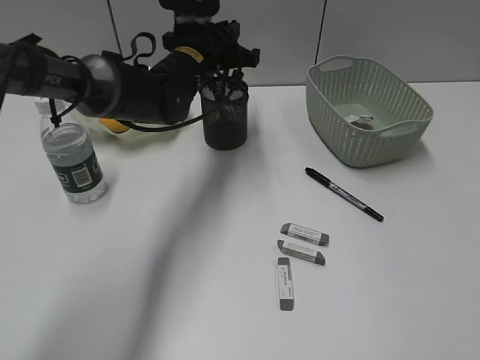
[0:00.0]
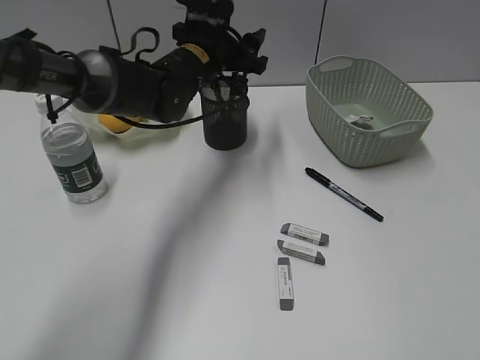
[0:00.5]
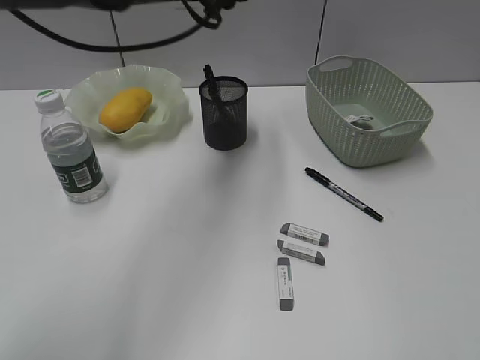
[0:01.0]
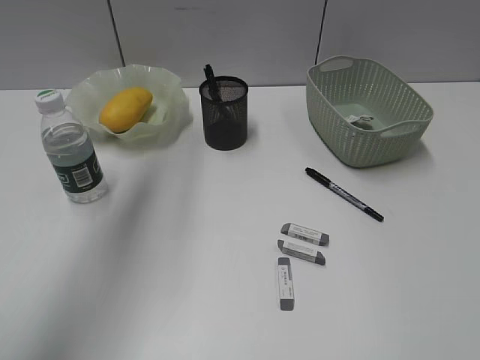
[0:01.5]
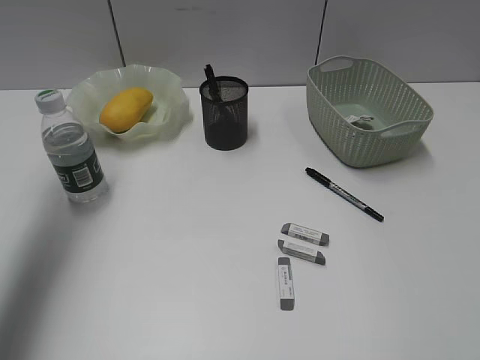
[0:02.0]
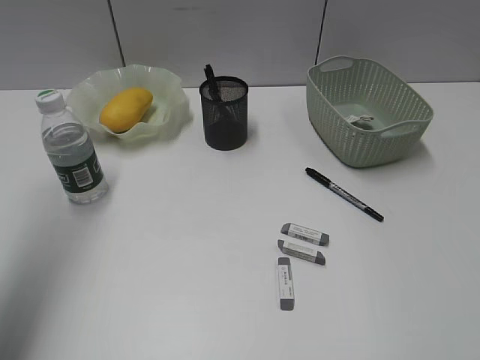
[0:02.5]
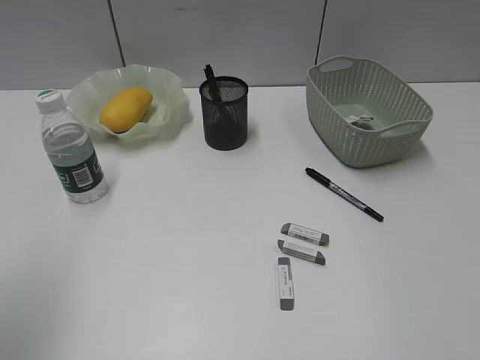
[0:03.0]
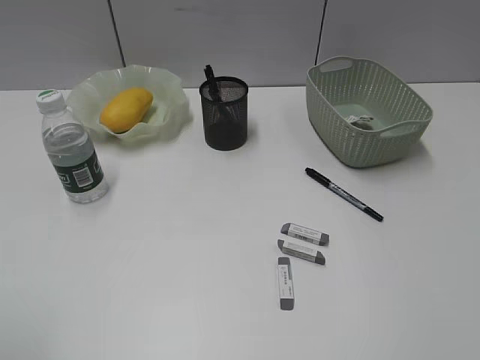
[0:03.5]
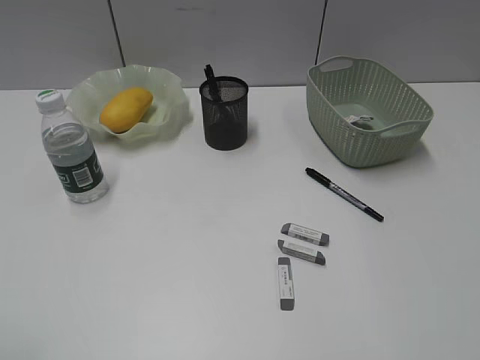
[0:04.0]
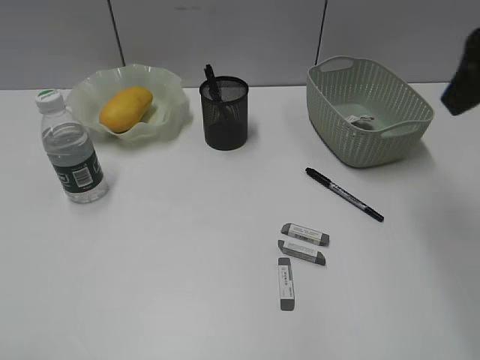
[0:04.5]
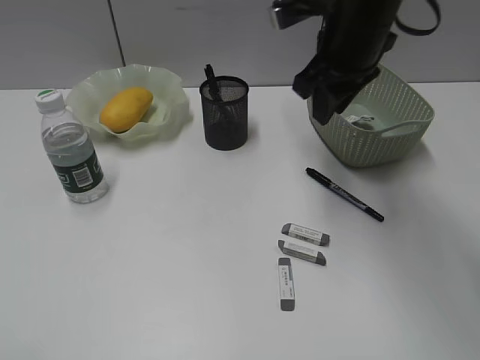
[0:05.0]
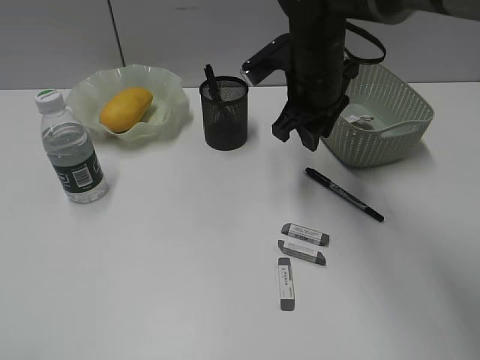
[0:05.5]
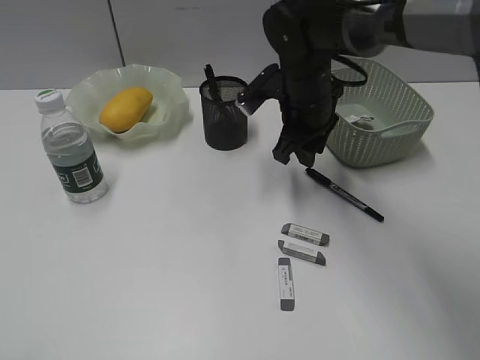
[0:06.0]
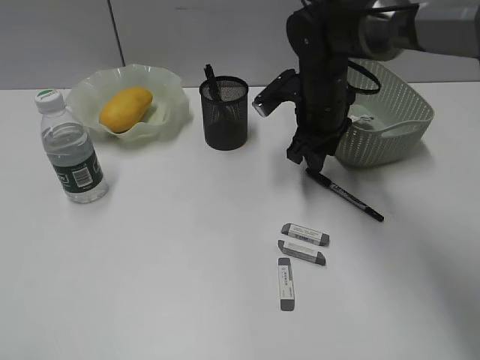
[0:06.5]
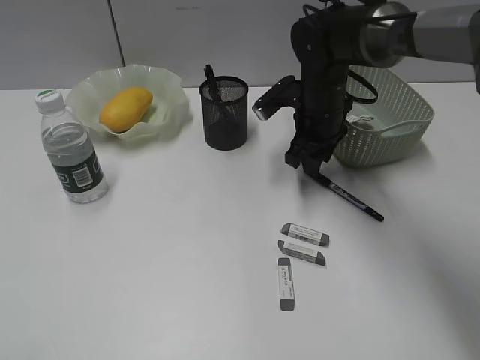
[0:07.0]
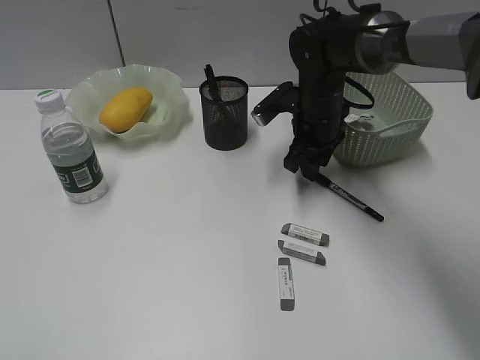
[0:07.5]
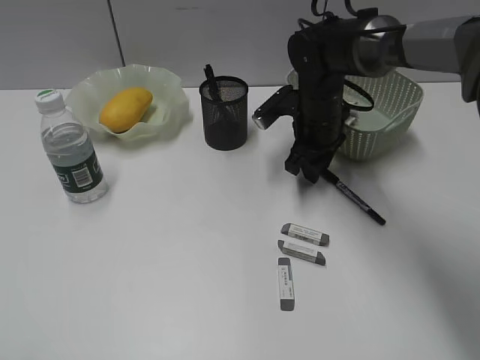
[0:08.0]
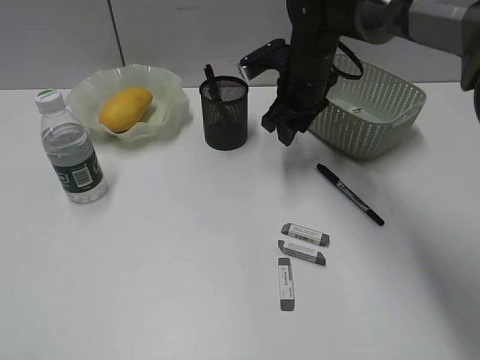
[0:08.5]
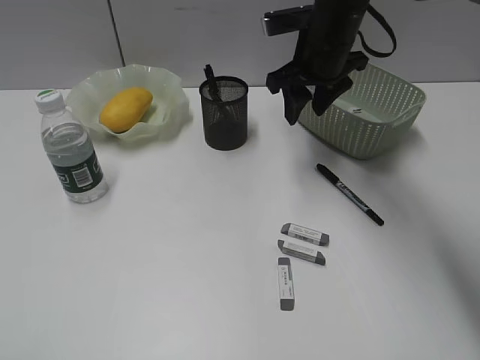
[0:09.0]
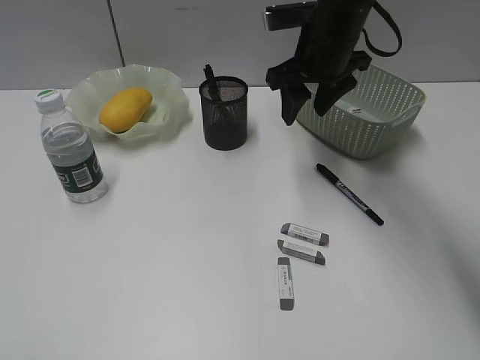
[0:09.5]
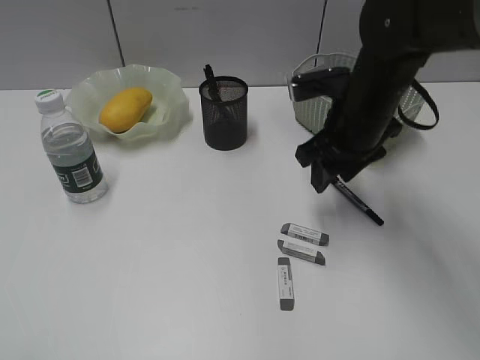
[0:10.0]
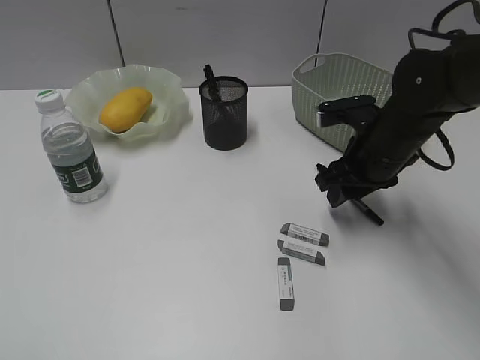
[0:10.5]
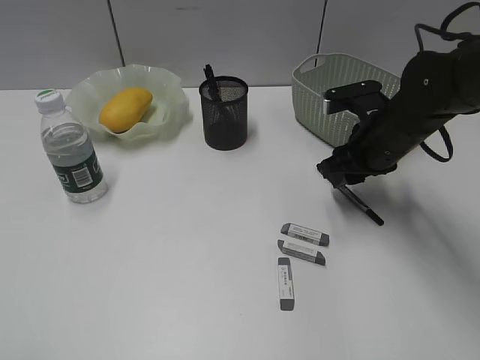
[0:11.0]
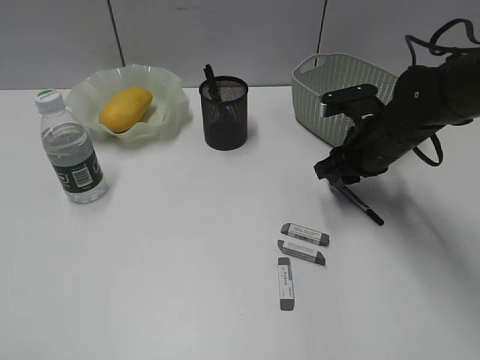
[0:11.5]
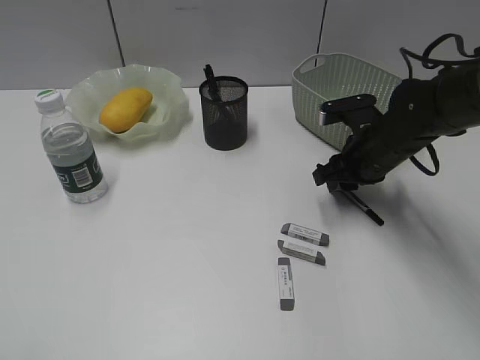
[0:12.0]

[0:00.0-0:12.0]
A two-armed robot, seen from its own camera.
0:00.0 to 0:02.0: The left gripper shifts some 35 cm to the left, upward and backward, and opens up.
0:02.0 to 0:04.0: The left gripper shifts some 35 cm backward and downward.
0:04.0 to 0:06.0: The right gripper heads forward, to the left and downward, covering about 40 cm, and closes up.
0:06.0 to 0:08.0: The right gripper changes place by about 5 cm.
0:08.0 to 0:10.0: The right gripper travels backward and upward by some 10 cm.
0:10.0 to 0:12.0: The right gripper moves downward, some 5 cm.

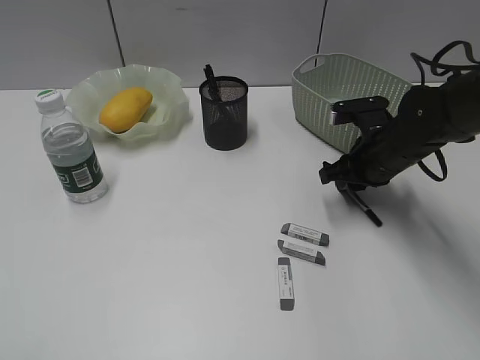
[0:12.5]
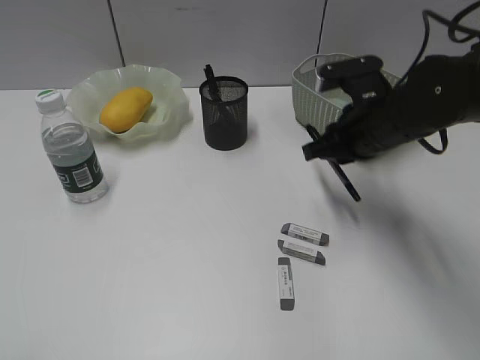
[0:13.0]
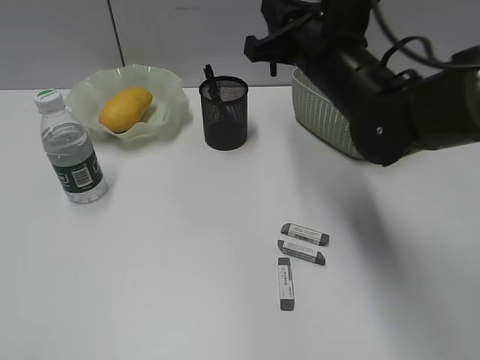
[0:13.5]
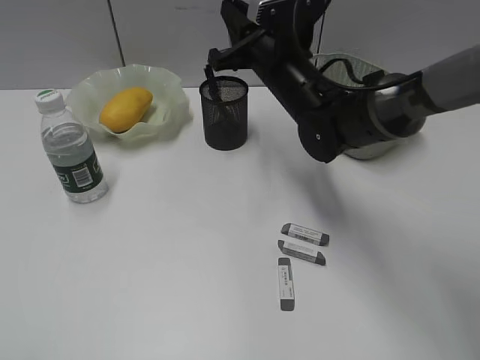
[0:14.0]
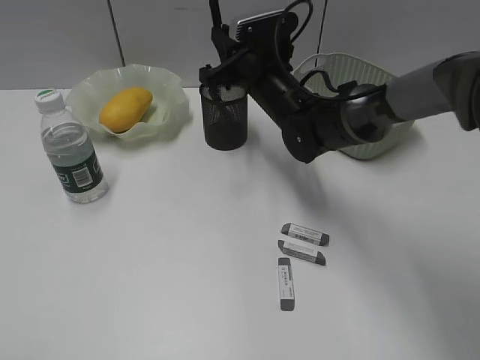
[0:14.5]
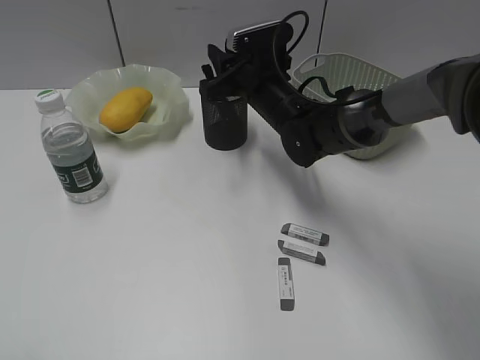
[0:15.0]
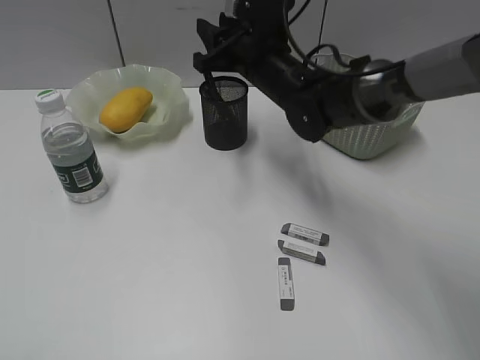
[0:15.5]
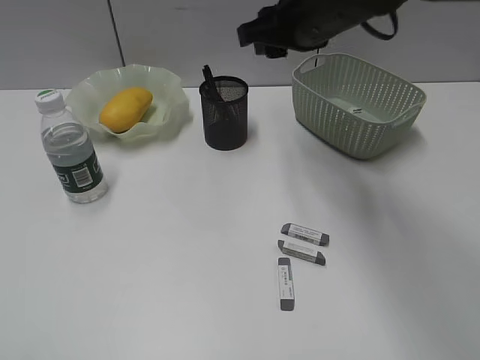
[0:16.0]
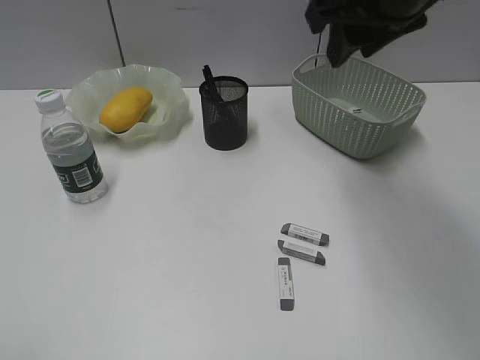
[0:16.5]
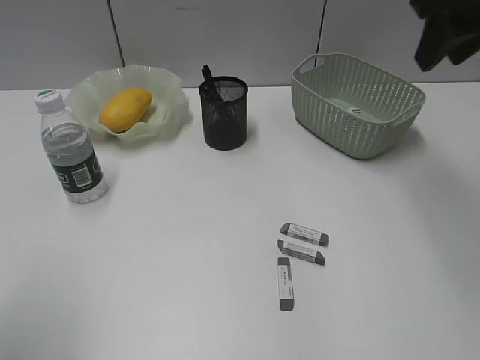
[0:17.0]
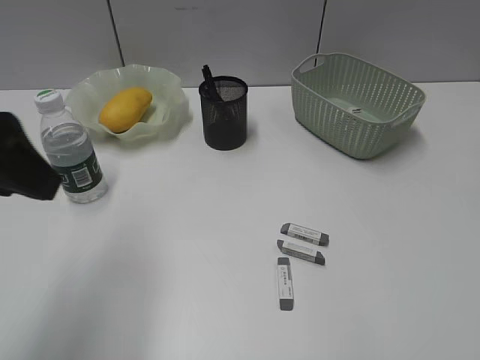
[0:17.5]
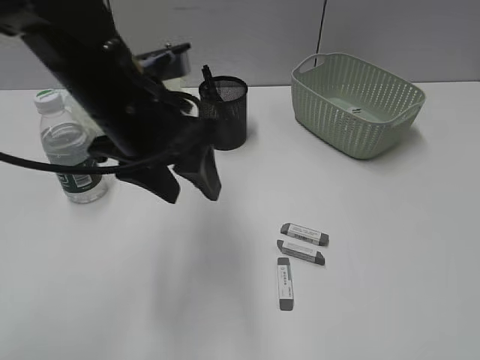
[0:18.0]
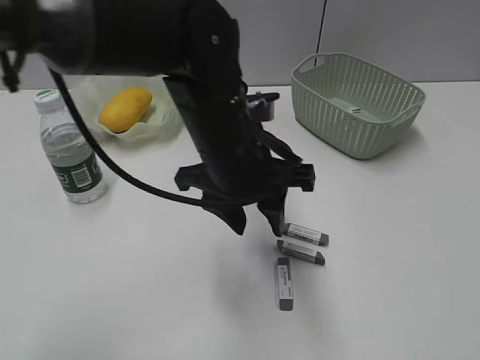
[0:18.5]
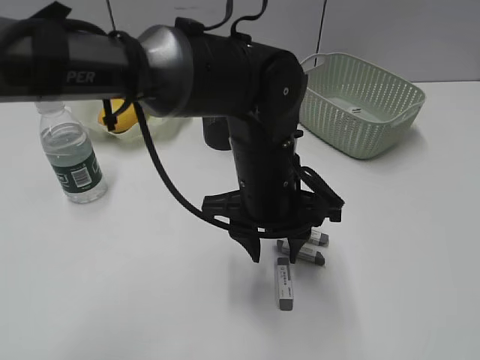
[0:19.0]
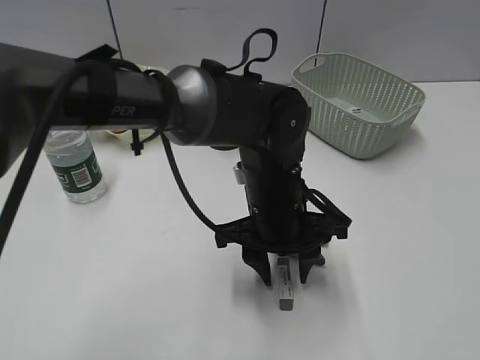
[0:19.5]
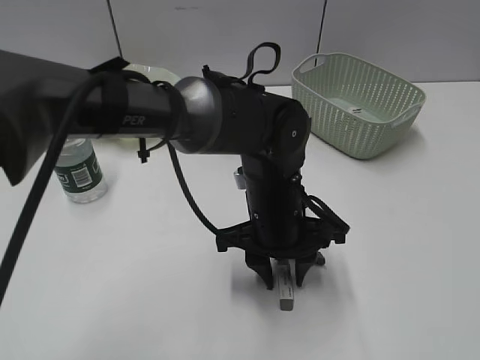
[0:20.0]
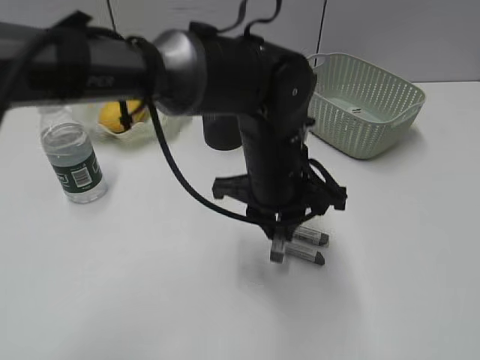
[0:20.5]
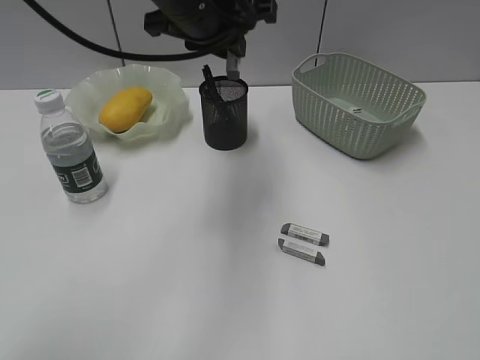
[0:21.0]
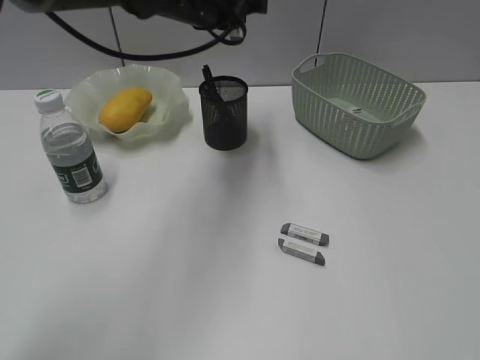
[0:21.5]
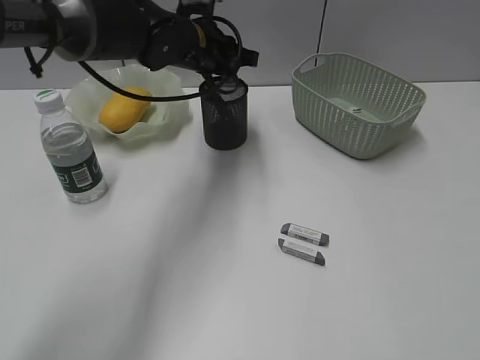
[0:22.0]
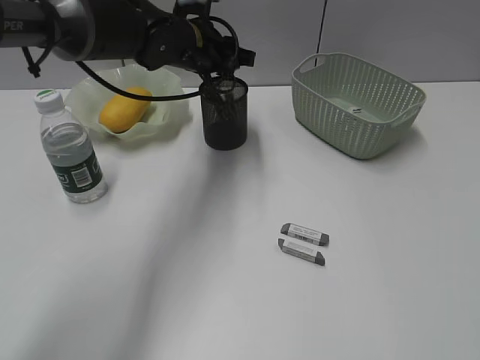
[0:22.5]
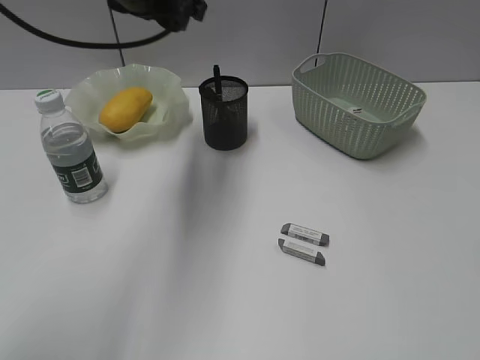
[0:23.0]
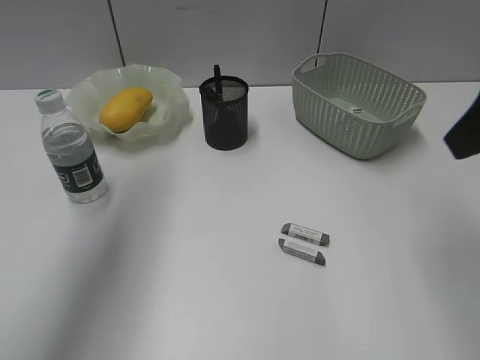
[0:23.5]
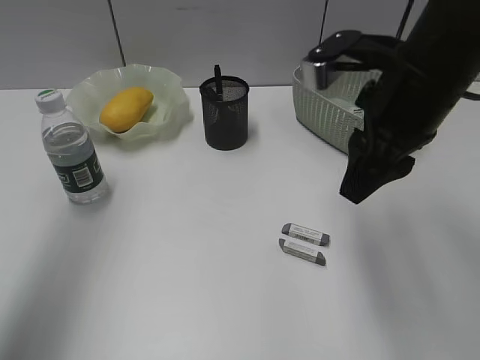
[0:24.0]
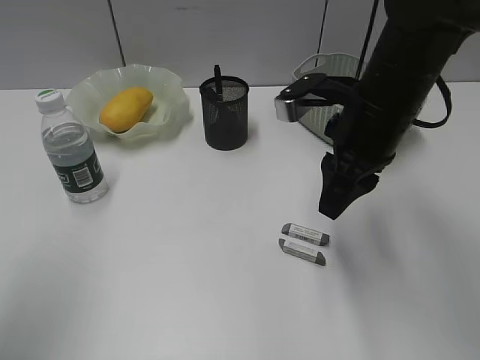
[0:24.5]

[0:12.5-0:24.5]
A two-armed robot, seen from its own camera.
Step, 0:13.0 to 0:15.0: Place the black pen in pen holder with right gripper.
Step, 0:15.5 to 0:20.0: Grasp the eraser with left gripper.
Step, 0:20.5 to 0:22.5: Place the eraser in pen holder with left gripper.
0:12.5 to 0:14.5: The right gripper travels to the left and forward by roughly 15 cm.
0:14.5 to 0:16.5: The right gripper heads upward, backward and to the right, covering some 25 cm, and opens.
0:16.5 to 0:18.5: The left gripper shifts approximately 40 cm to the right and forward. Meanwhile the right gripper goes approximately 25 cm to the right and backward.
0:18.5 to 0:20.5: The left gripper reaches approximately 10 cm downward, then returns, and closes up, while the right gripper shifts about 5 cm backward.
0:20.5 to 0:22.5: The left gripper is displaced forward and to the left by about 20 cm, and opens up.
0:22.5 to 0:24.5: The left gripper is displaced backward, to the left and upward by about 40 cm. The right gripper heads forward, downward and to the left, covering roughly 30 cm.

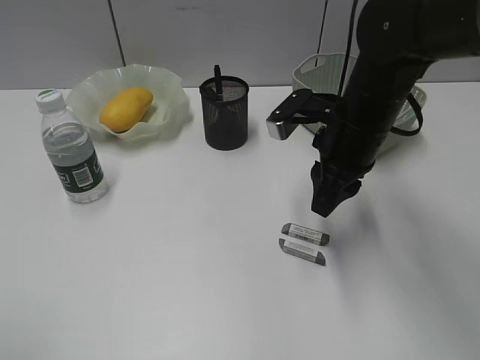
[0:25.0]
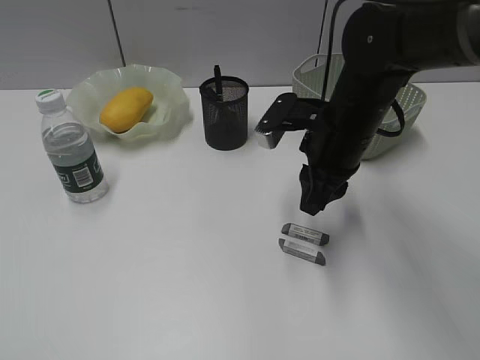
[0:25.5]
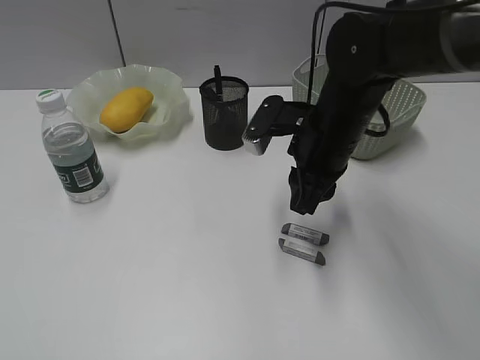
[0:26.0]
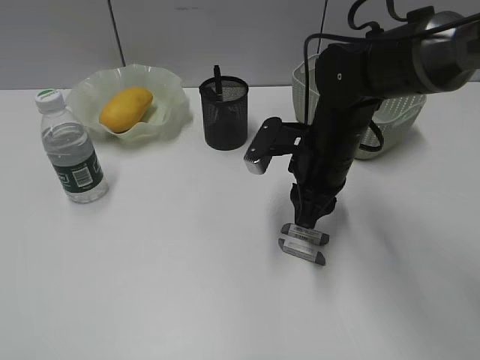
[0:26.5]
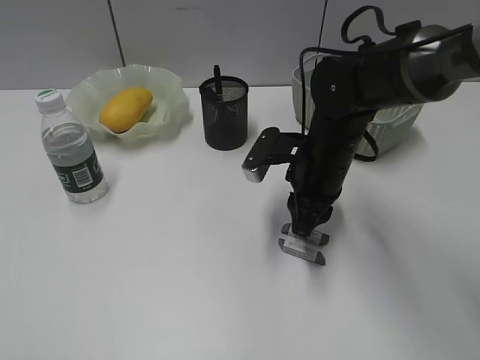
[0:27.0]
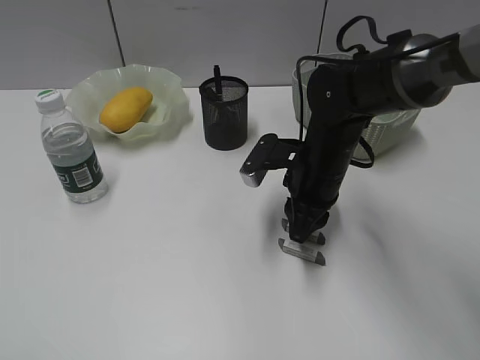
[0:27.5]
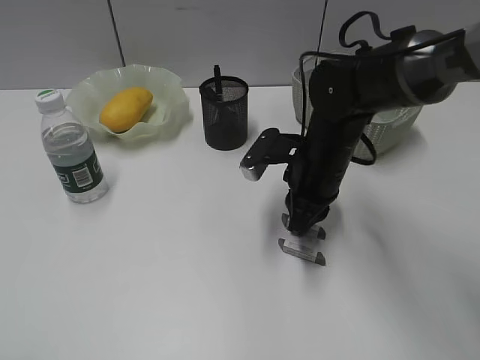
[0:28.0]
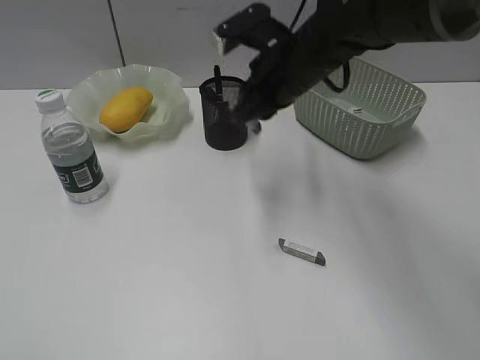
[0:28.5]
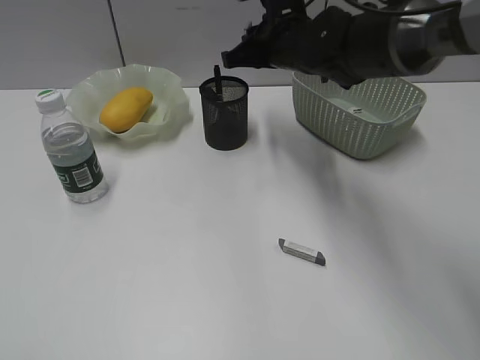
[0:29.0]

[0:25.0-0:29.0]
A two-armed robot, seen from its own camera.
Step, 0:25.0 to 0:27.5: Grasp the eraser with right gripper.
0:25.0 to 0:27.0: The right gripper heads downward, covering approximately 5 cm; the left gripper changes place by some 5 cm.
0:27.0 to 0:29.0: The right gripper moves forward and upward, some 15 cm.
